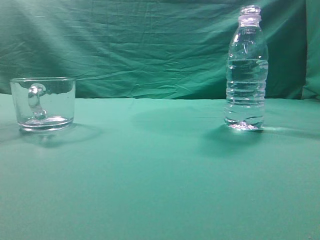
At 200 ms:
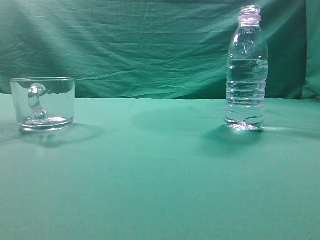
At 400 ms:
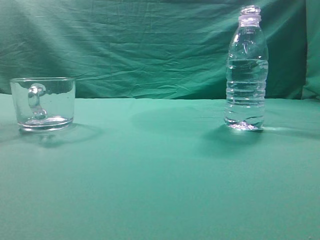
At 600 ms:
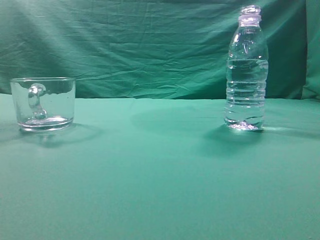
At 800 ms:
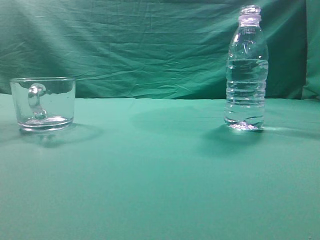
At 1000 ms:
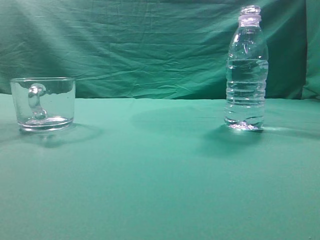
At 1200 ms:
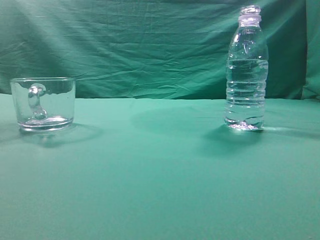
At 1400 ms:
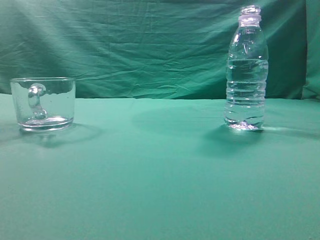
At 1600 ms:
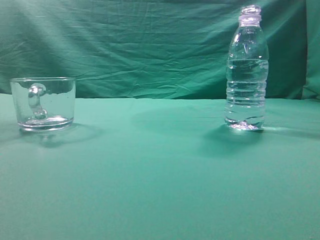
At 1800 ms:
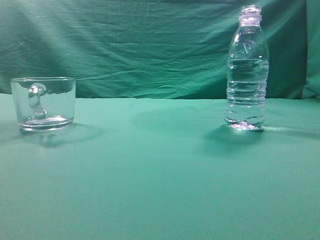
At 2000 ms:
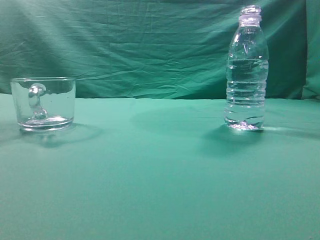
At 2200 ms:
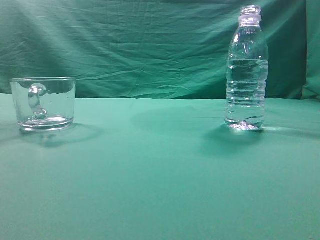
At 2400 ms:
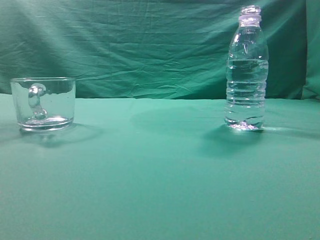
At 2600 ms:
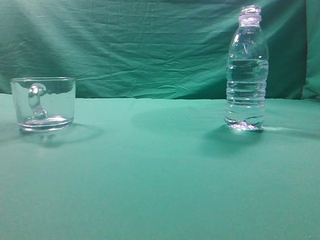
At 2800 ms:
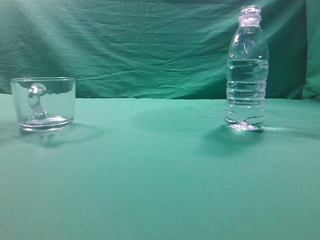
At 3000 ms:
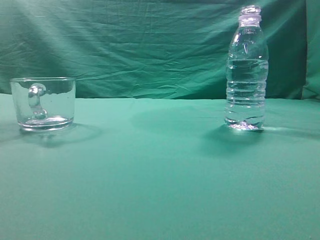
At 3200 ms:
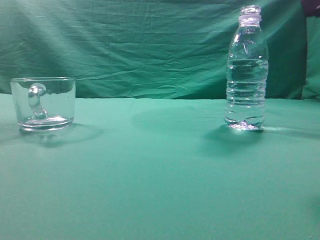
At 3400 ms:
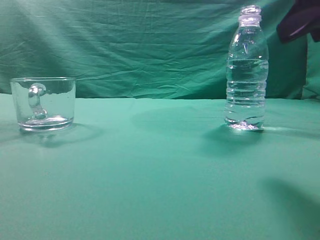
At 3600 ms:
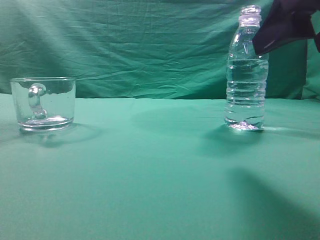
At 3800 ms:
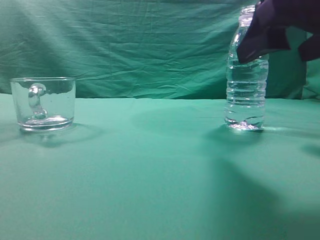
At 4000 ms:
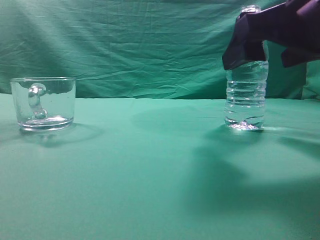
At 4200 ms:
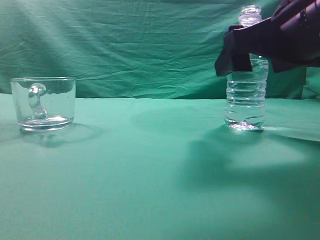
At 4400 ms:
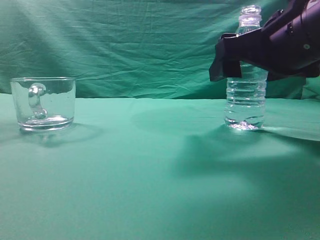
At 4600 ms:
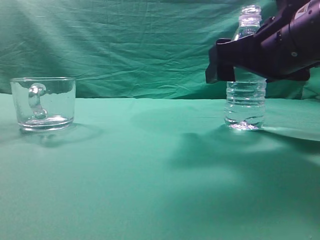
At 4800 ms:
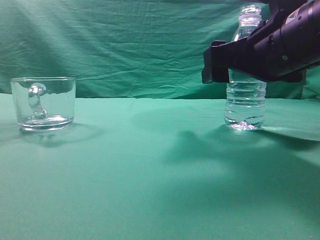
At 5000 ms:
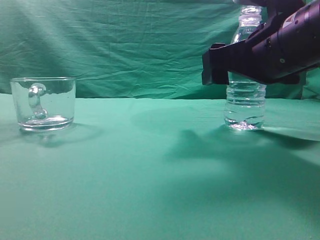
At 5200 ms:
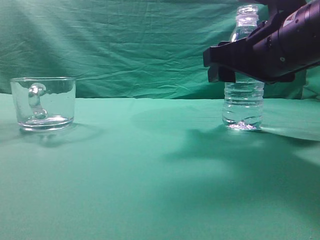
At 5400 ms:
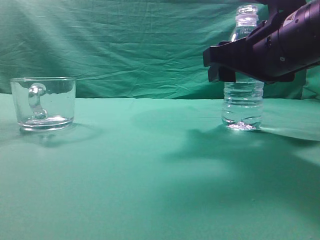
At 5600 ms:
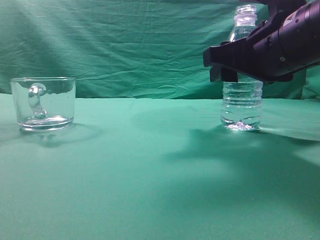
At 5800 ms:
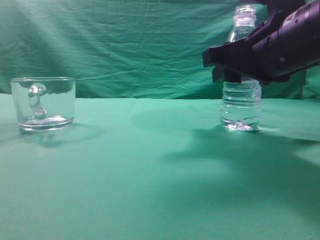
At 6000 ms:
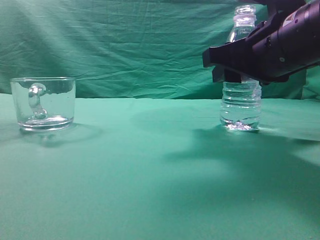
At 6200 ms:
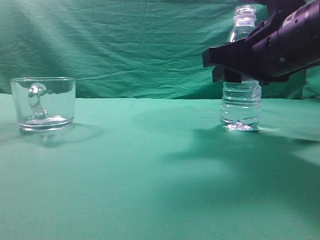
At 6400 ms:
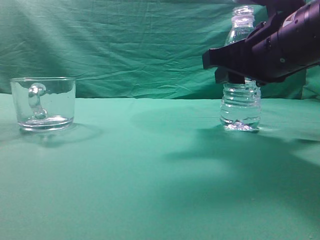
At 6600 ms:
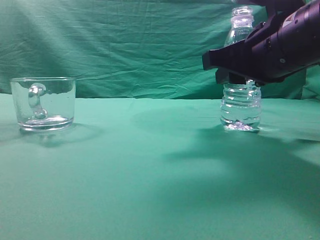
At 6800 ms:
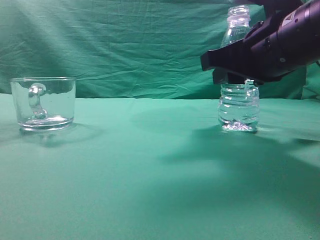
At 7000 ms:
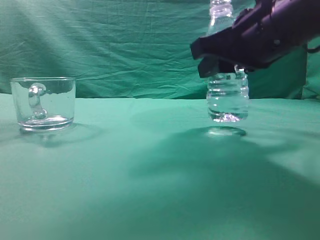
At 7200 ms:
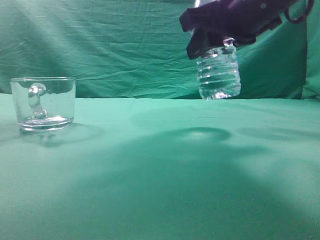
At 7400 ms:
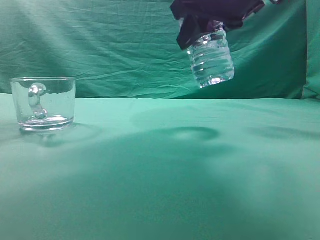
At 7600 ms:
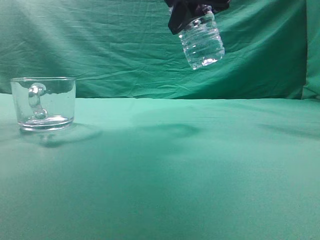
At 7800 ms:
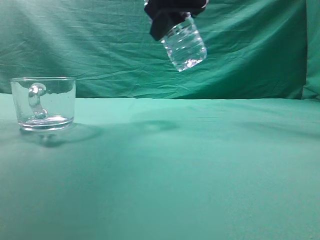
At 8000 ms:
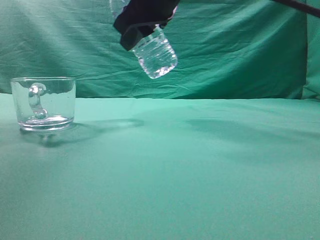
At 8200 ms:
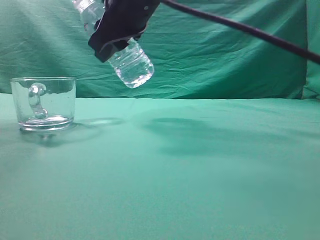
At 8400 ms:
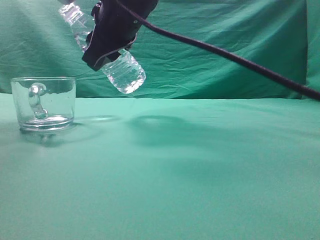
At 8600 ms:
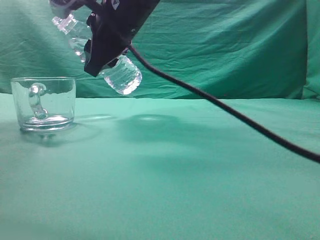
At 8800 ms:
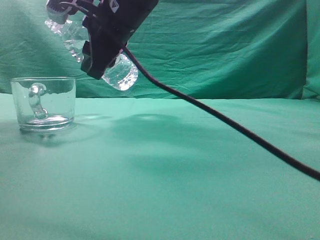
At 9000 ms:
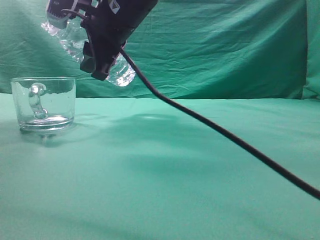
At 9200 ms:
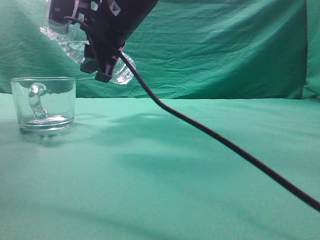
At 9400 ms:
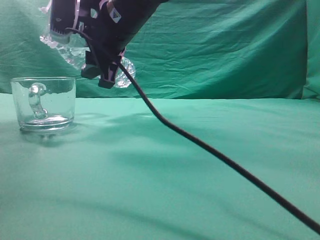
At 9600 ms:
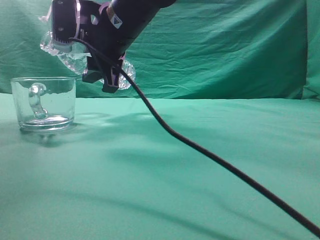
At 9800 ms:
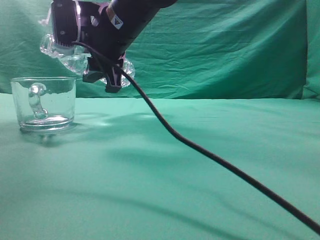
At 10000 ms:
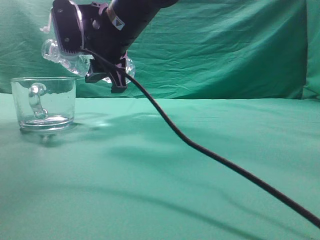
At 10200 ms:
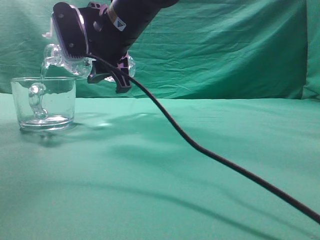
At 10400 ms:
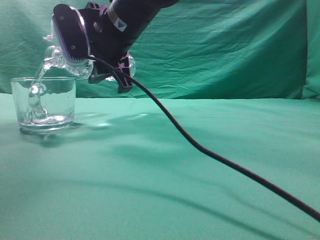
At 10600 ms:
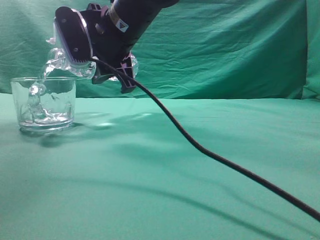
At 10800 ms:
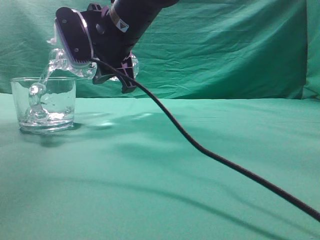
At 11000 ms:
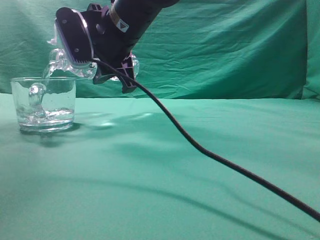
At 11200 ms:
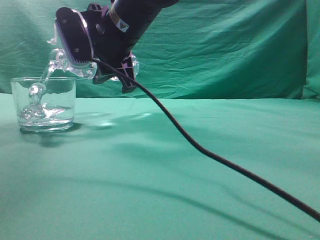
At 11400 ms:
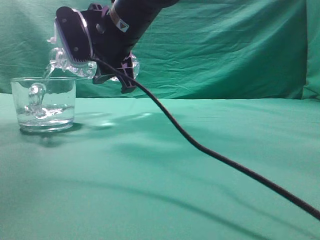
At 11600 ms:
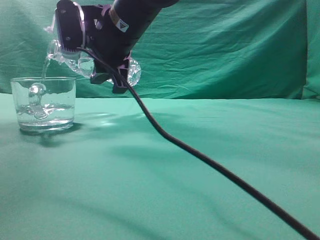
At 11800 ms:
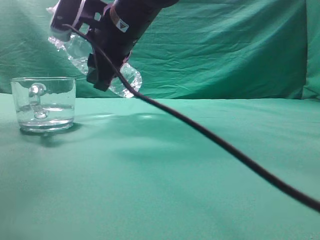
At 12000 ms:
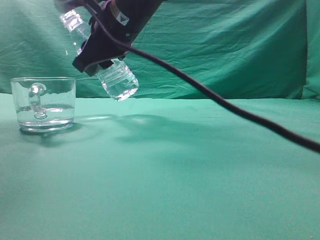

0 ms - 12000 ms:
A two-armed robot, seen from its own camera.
Task of the whole recording: pick up the water bottle and pour the water in it into the glass.
Step, 0 ms - 7200 ms: Grasp the mineral water bottle.
3000 ms - 4400 ms: The right gripper heads forward, downward and to the left, covering about 15 cm, and opens.
4400 ms - 6000 ms: The right gripper closes its fingers.
6000 ms - 7600 ms: The right gripper travels upward, to the left and forward by about 15 cm.
7600 ms - 9000 ms: The right gripper travels to the left by approximately 15 cm.

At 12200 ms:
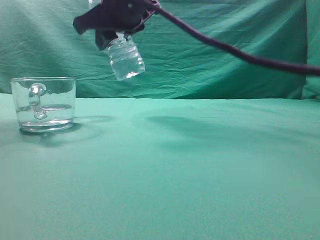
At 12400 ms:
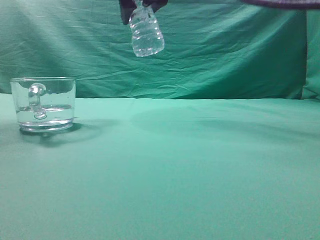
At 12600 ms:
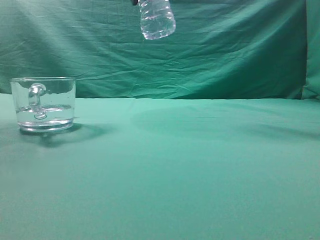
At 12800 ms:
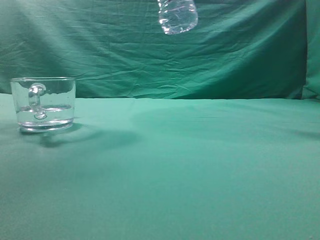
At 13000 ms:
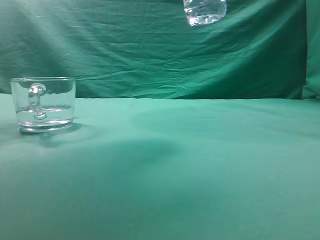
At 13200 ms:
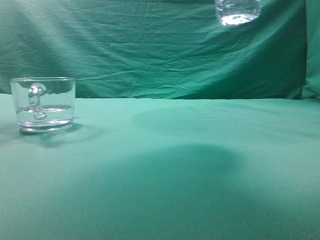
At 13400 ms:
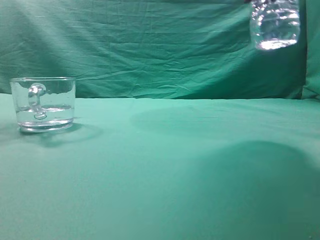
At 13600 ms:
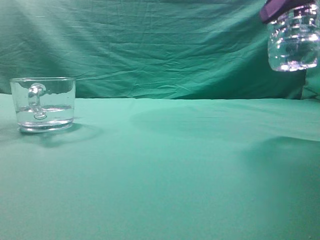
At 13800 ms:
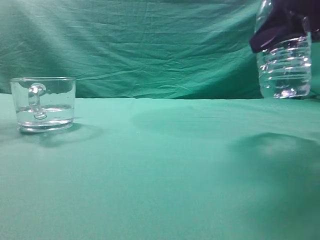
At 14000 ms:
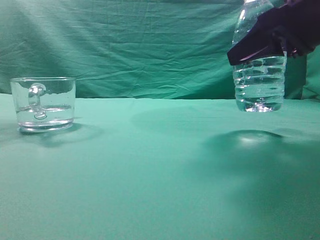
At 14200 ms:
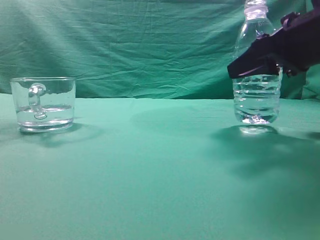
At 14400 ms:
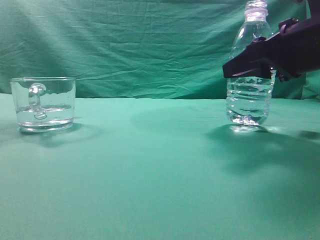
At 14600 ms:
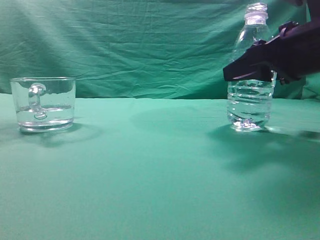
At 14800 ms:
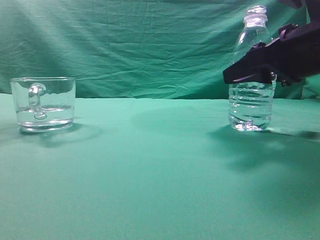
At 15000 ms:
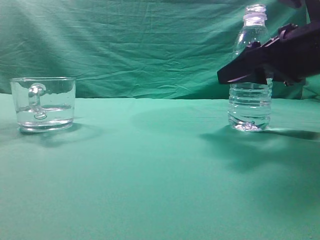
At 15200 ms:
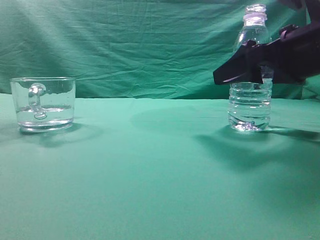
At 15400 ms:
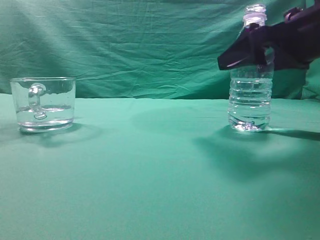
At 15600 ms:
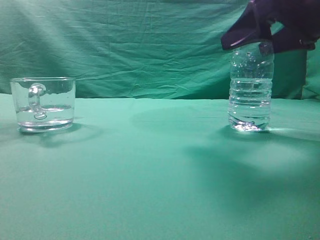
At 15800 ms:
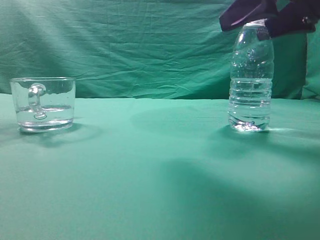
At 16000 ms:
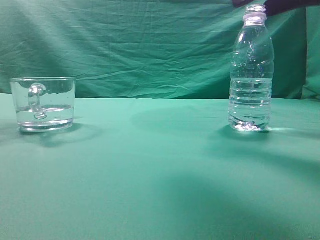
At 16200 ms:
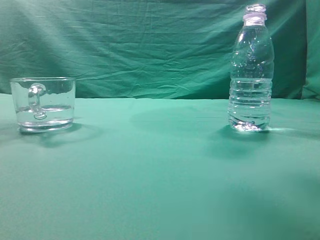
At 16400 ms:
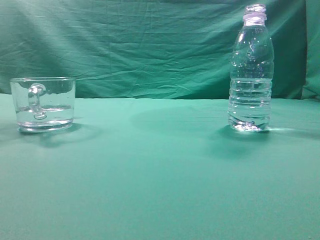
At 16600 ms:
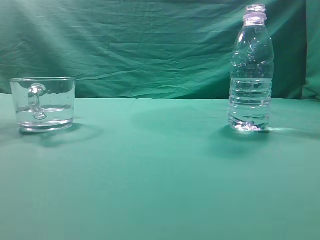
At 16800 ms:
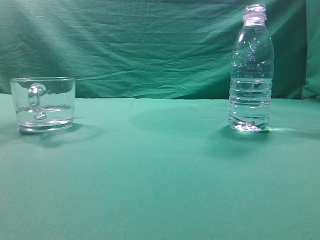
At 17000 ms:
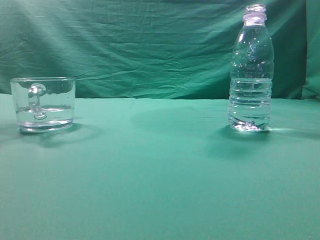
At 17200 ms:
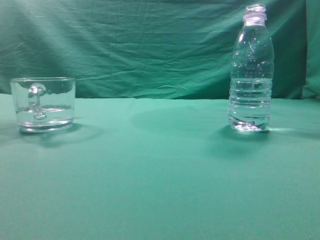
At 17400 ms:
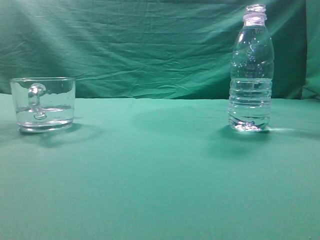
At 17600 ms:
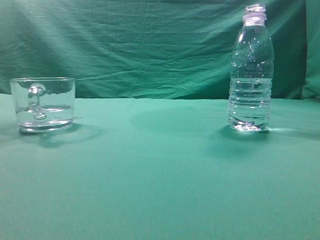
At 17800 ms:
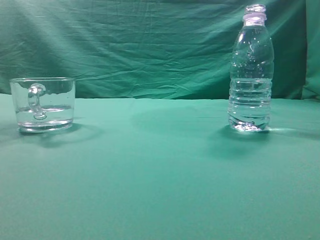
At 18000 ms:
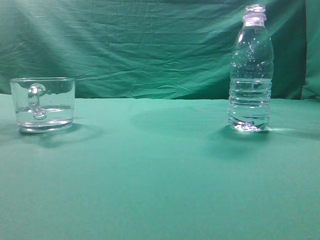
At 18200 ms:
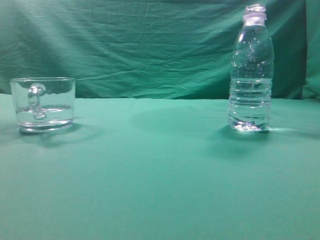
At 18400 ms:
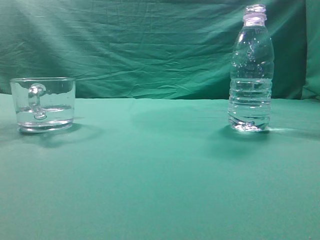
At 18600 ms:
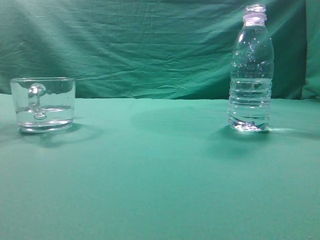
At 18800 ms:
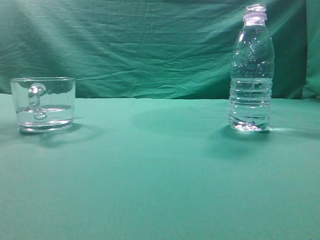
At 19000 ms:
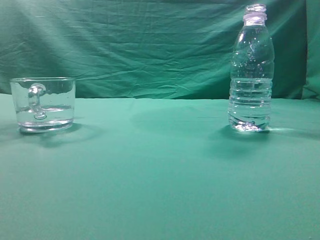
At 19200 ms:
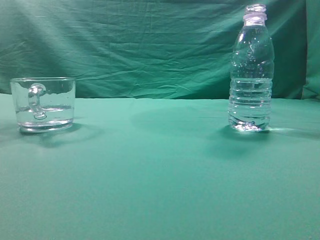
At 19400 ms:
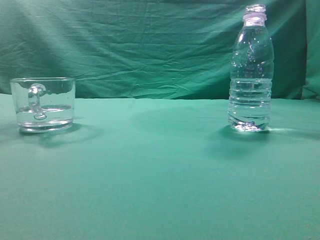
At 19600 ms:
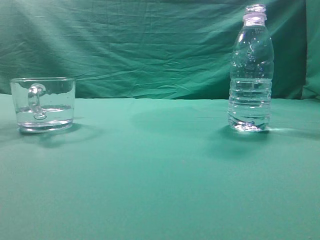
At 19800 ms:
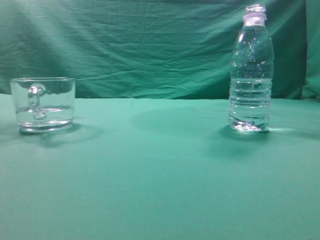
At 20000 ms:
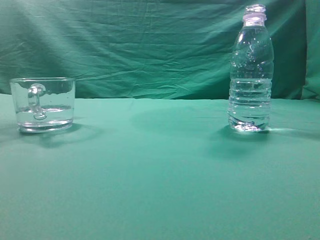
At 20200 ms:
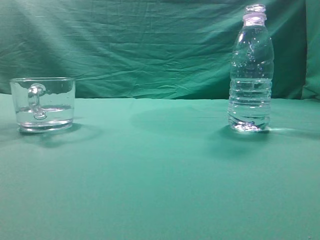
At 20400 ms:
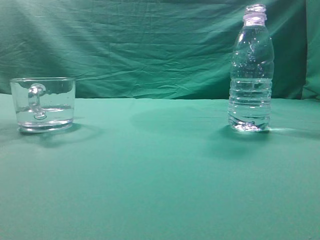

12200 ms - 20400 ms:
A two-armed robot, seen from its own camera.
Task of the whole recording: pick up the water bottle and pour the water in it into the glass.
12200 ms - 13800 ms: The right gripper is displaced to the right by about 25 cm.
13800 ms - 15400 ms: The right gripper opens.
15400 ms - 17200 ms: The right gripper shifts about 30 cm backward and upward, and closes up.
